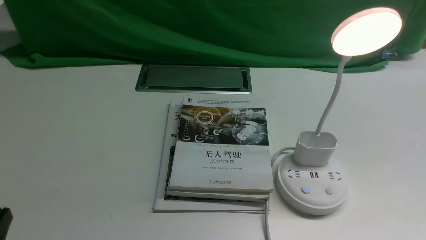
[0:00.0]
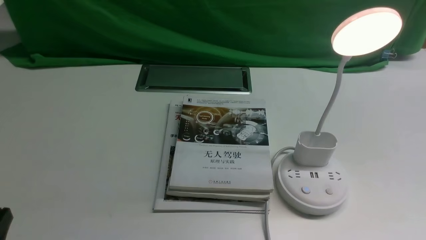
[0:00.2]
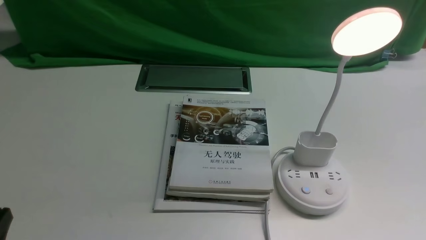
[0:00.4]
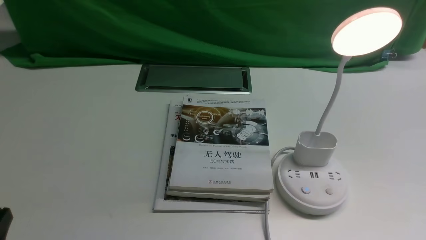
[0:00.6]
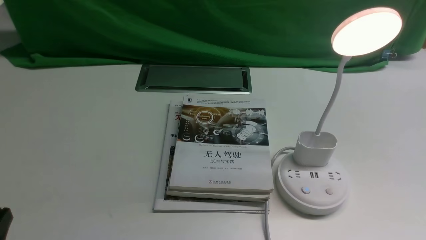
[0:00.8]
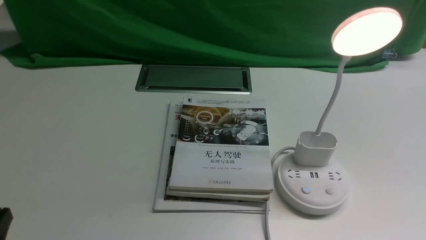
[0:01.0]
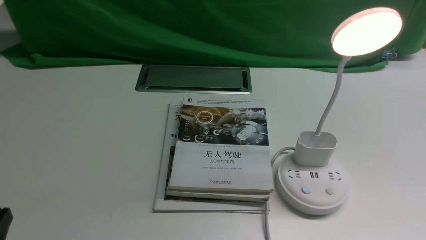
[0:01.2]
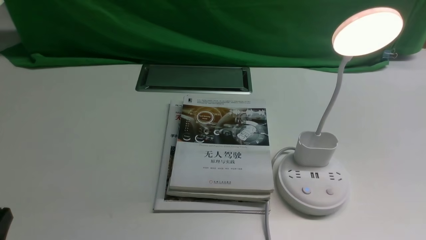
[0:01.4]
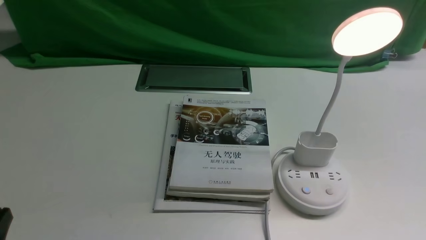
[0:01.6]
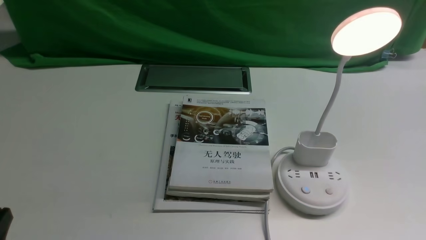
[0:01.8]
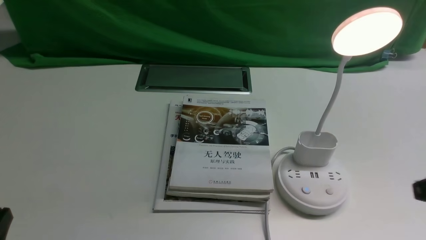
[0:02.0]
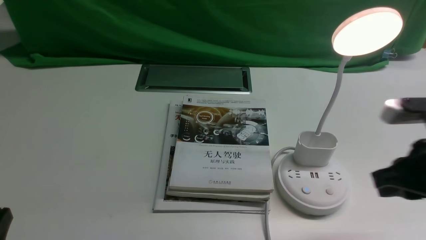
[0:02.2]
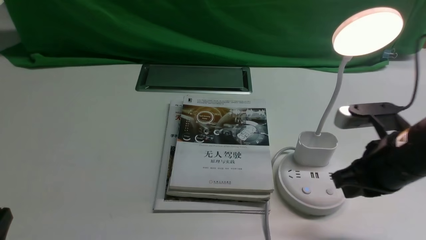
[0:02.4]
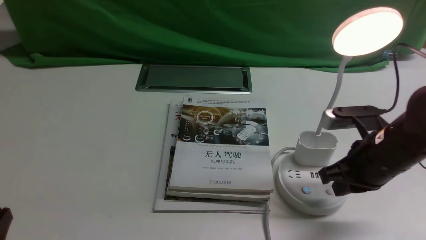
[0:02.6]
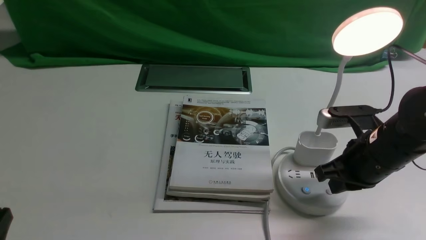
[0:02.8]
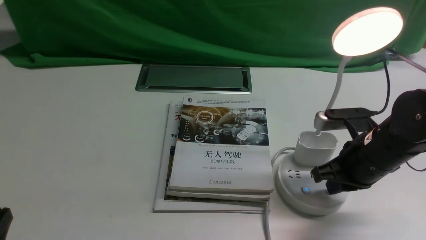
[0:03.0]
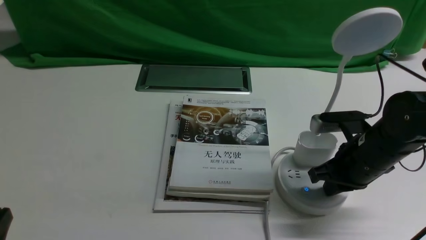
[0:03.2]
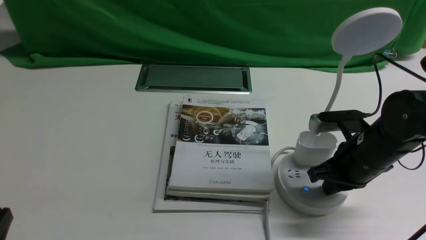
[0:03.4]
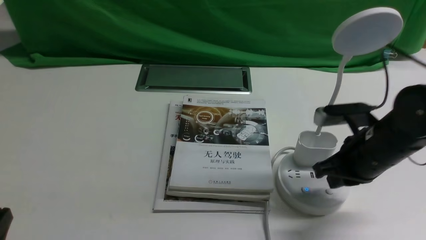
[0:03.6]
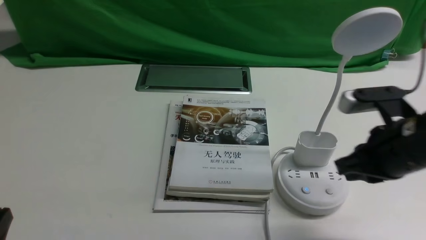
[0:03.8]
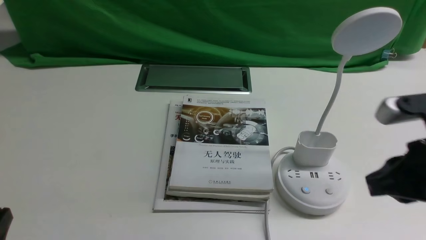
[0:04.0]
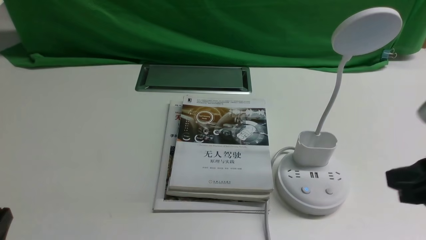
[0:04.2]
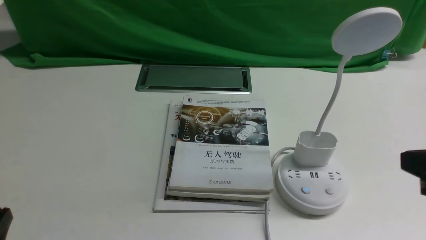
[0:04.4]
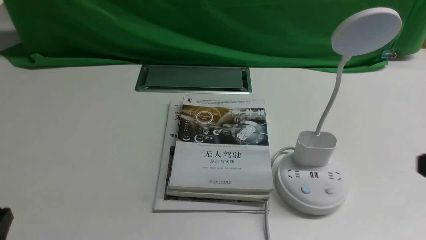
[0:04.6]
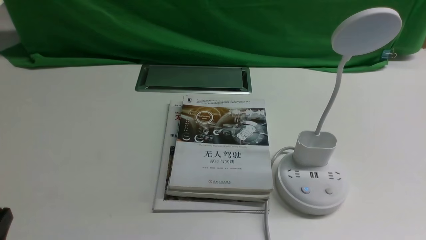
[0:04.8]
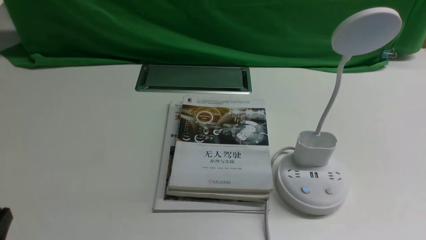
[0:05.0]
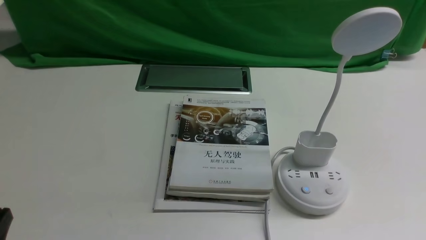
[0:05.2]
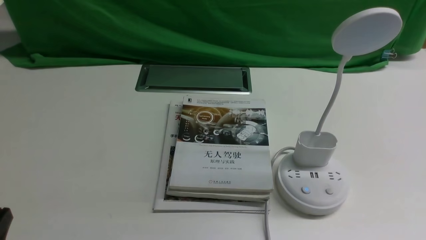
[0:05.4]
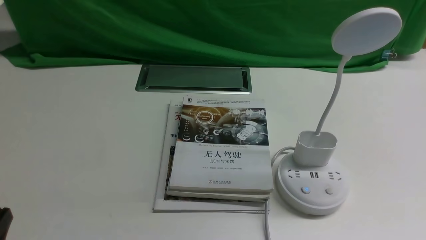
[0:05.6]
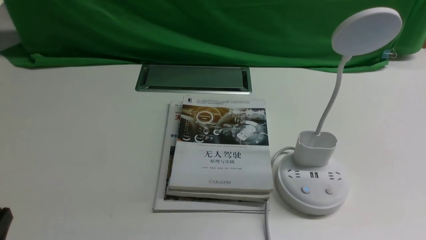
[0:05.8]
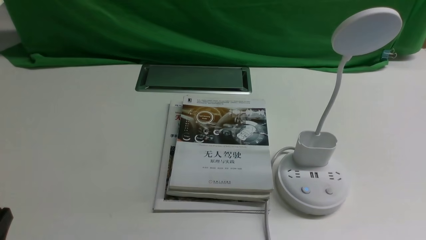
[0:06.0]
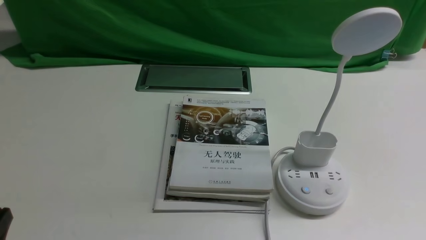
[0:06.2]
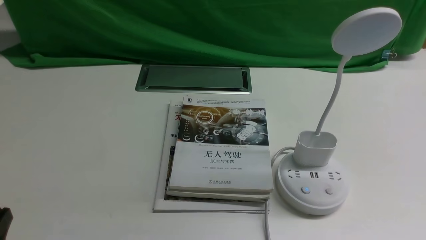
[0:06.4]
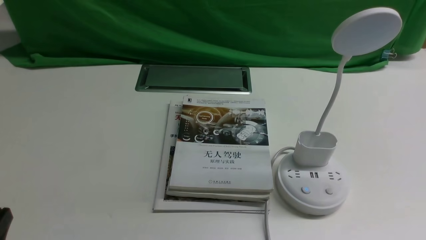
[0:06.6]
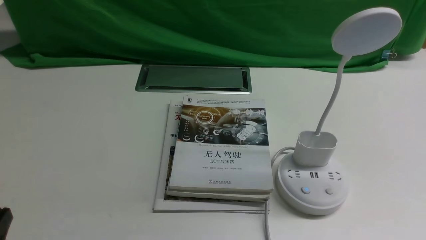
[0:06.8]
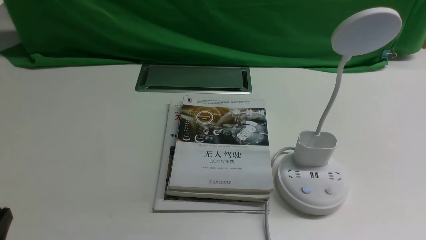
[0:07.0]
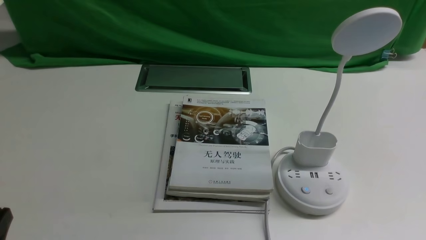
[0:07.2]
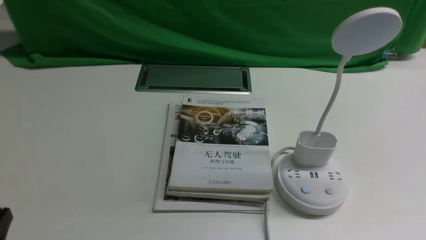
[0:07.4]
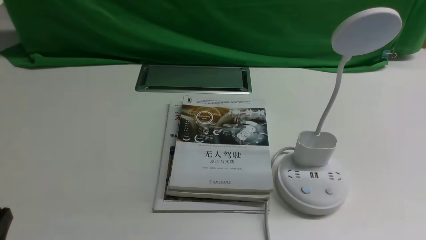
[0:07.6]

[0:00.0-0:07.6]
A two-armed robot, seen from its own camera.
Task of the whole recording: turn off the desk lamp on the white desktop by hand.
Step, 0:00.0 to 0:03.6: use the right arm to press the button switch on the lamp holder.
0:01.6 to 0:03.0: The right gripper heads forward and to the left, covering approximately 25 cm, and closes.
0:03.0 to 0:04.6: The right gripper travels backward, upward and to the right by about 20 cm, and opens up.

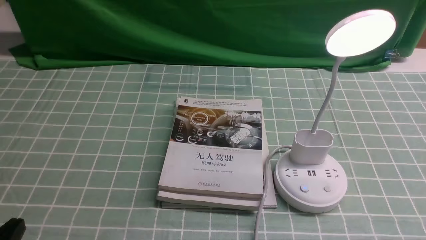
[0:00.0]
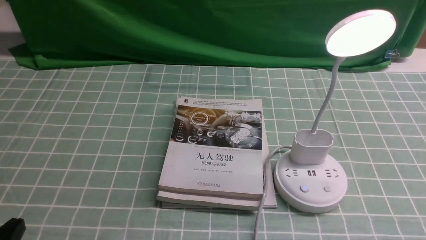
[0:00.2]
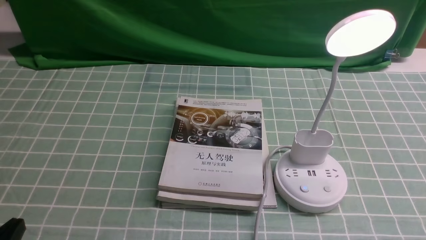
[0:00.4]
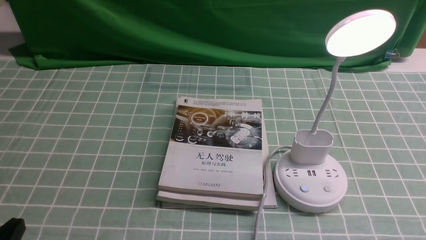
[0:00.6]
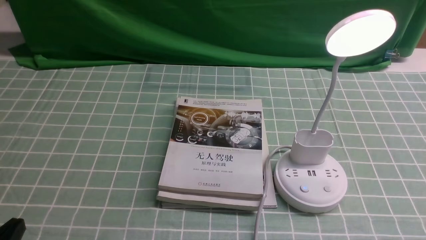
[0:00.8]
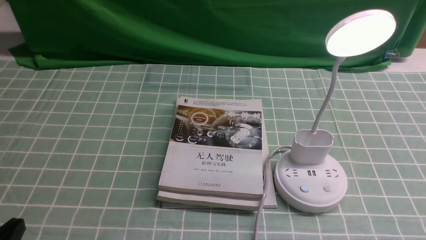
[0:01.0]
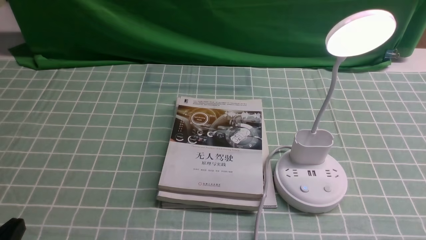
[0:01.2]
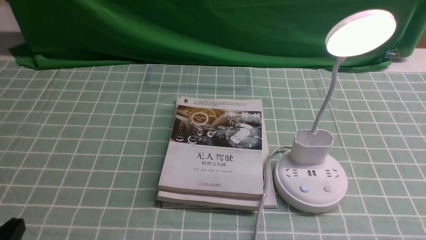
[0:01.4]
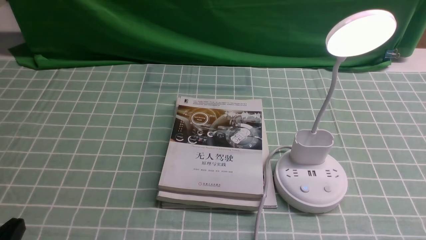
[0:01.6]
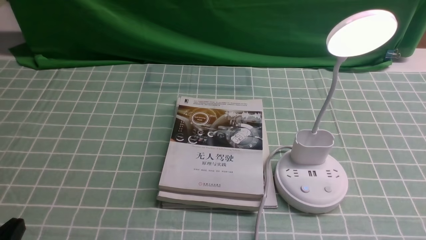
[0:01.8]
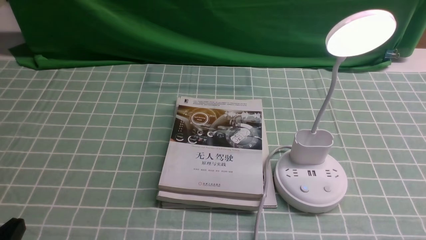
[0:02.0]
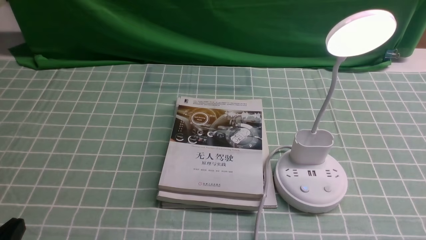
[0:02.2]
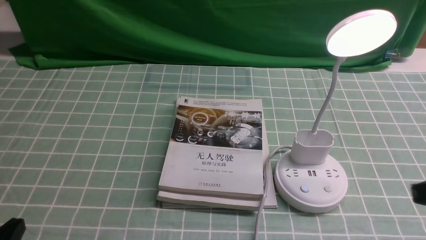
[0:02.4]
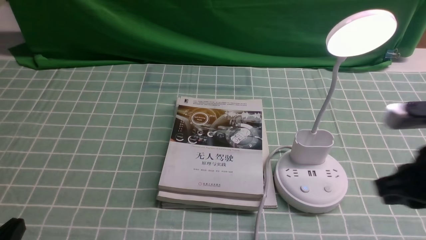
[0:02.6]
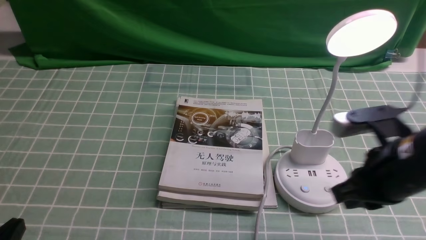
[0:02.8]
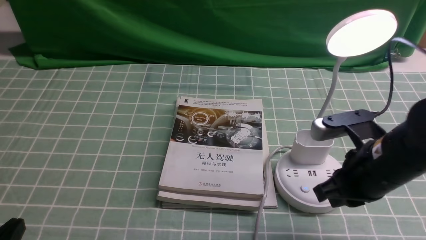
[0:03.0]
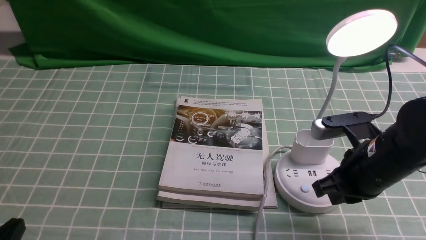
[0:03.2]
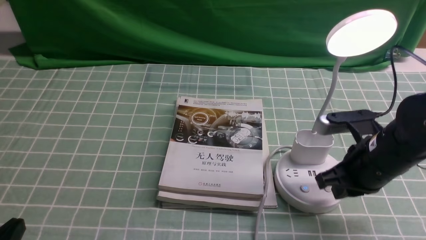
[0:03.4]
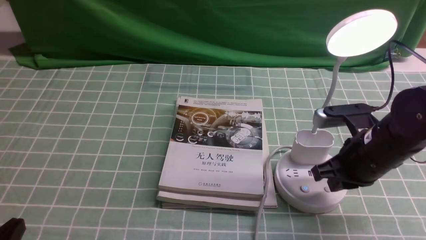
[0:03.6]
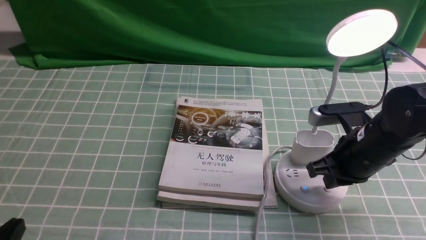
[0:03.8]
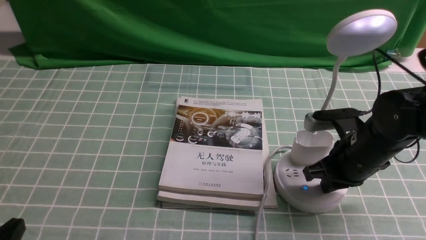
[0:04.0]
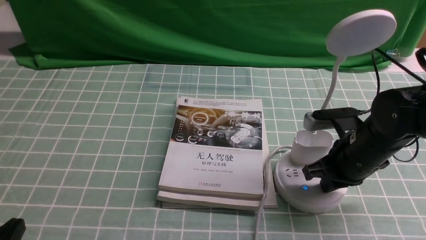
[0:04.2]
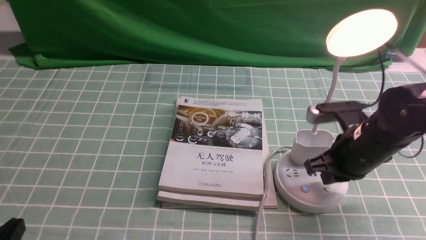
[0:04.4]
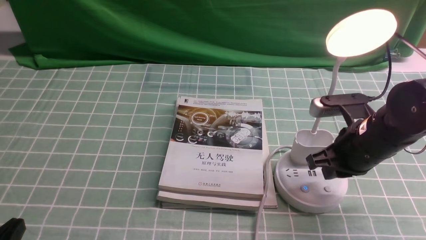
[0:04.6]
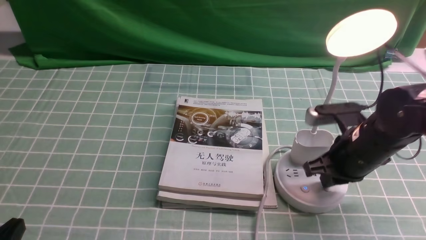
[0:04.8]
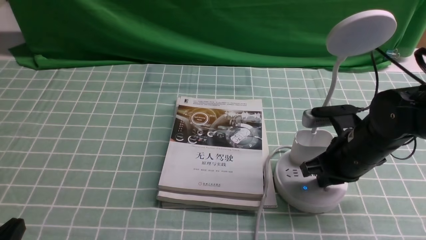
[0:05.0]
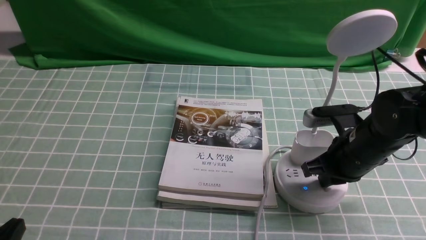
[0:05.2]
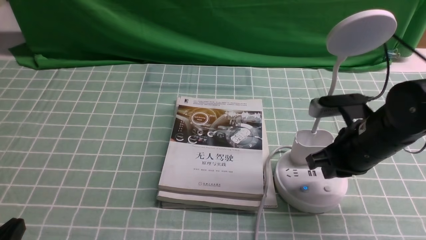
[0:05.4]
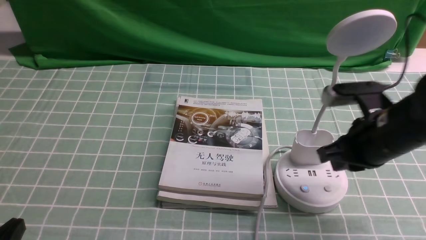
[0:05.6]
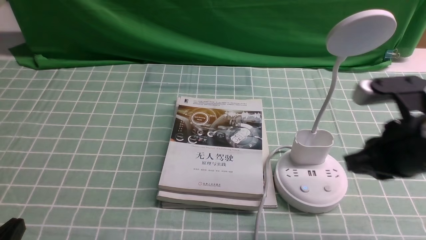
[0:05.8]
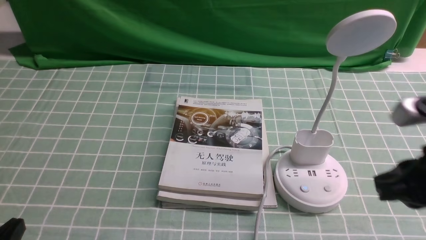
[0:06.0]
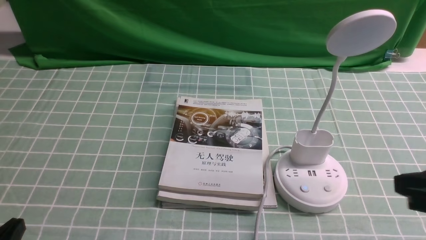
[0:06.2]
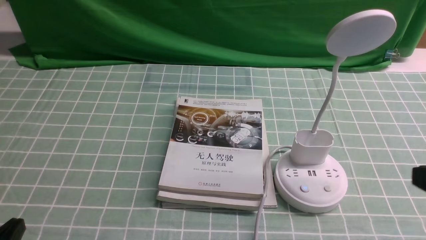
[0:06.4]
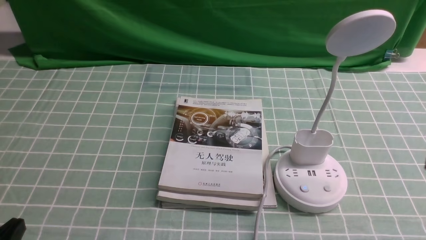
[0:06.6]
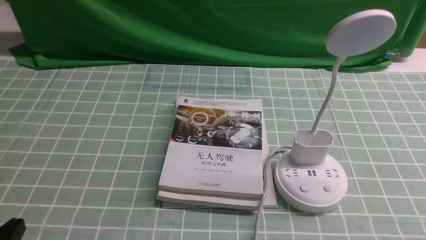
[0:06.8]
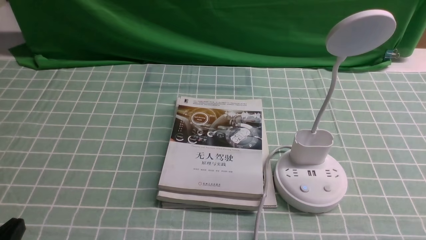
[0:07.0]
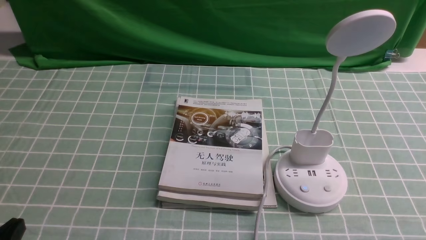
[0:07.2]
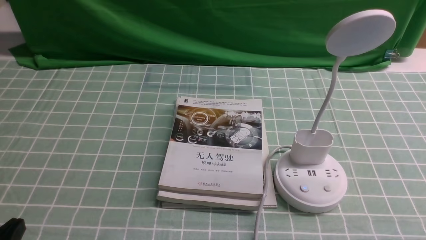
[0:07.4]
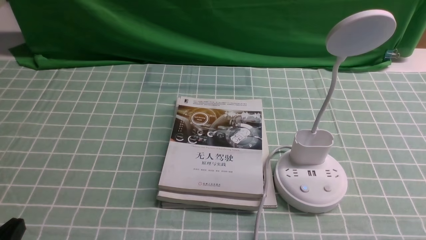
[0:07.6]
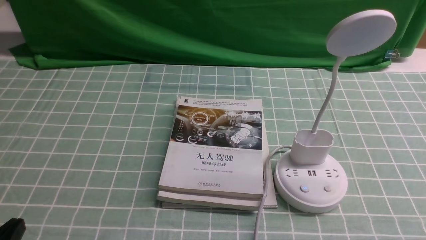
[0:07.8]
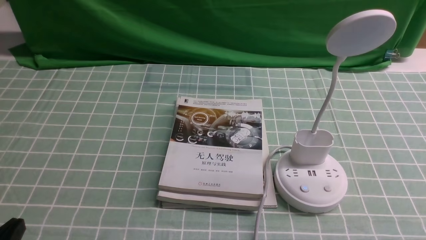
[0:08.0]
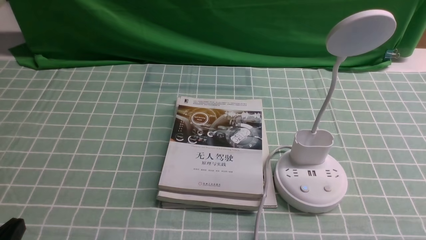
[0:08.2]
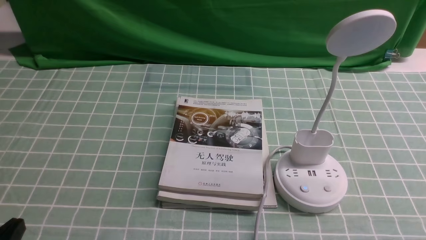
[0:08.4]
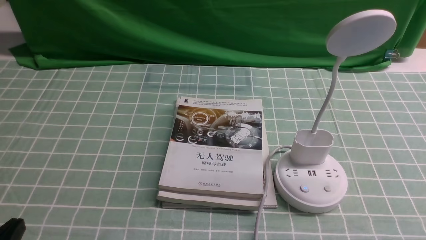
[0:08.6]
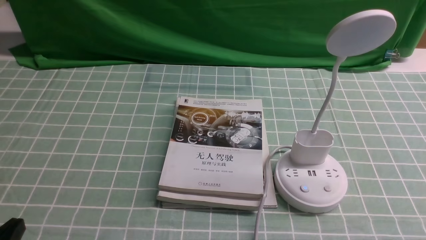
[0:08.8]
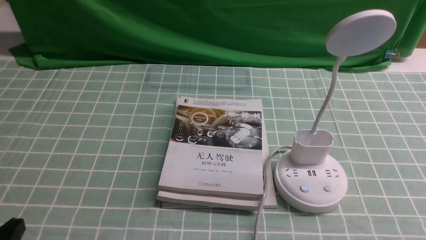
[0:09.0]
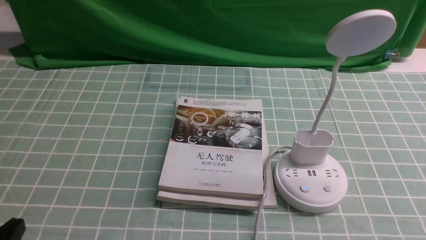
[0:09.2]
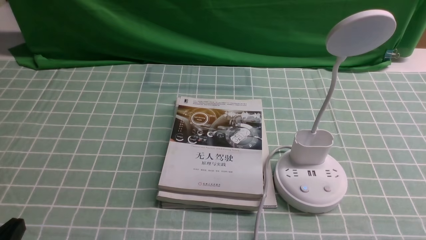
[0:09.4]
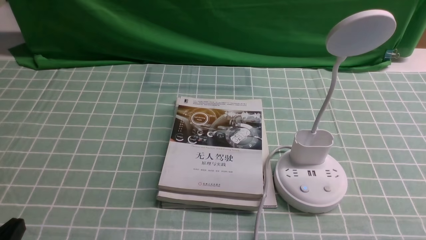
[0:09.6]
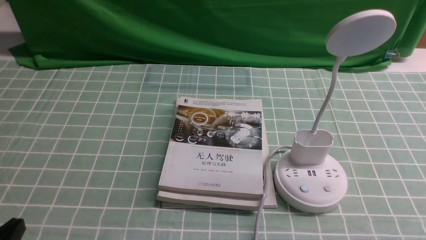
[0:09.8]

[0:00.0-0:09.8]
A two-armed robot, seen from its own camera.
Task of the whole recording: turn off the desk lamp on the blue coffee tablecloth by hand.
Step, 0:00.0 to 0:05.4: use the right arm to press the button switch on the lamp holder.
0:01.4 to 0:02.8: The right gripper is displaced forward and to the left by about 20 cm, and closes its fingers.
0:02.8 to 0:04.2: The right gripper is displaced forward and downward by about 10 cm.
0:04.2 to 0:05.6: The right gripper goes approximately 5 cm upward.
0:05.6 to 0:07.0: The right gripper travels backward and to the right by about 20 cm.
